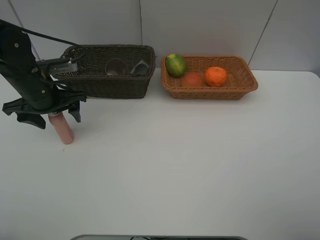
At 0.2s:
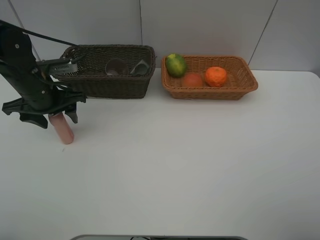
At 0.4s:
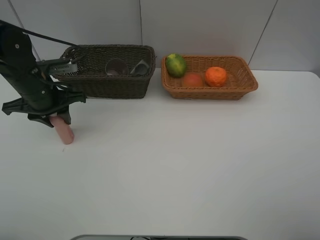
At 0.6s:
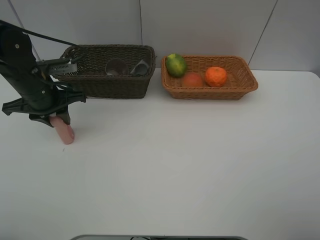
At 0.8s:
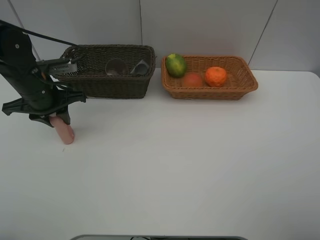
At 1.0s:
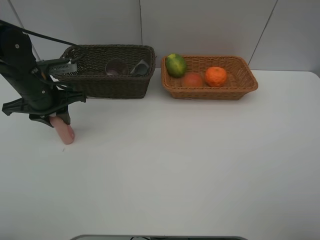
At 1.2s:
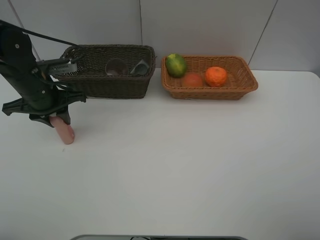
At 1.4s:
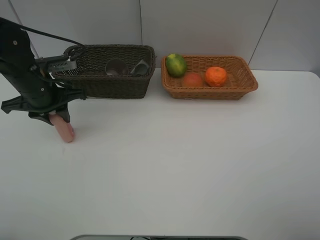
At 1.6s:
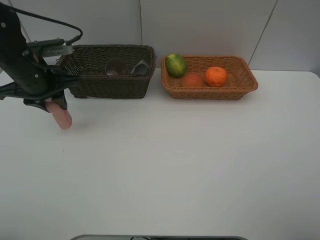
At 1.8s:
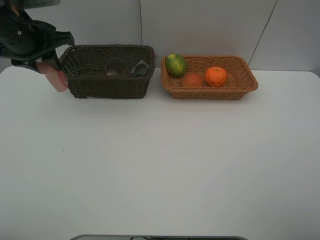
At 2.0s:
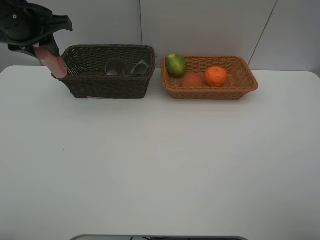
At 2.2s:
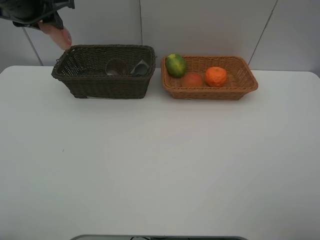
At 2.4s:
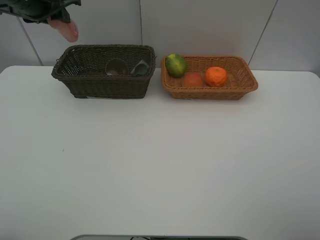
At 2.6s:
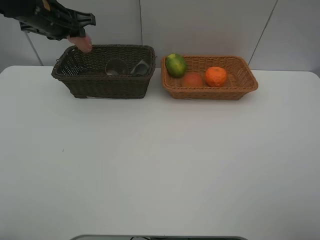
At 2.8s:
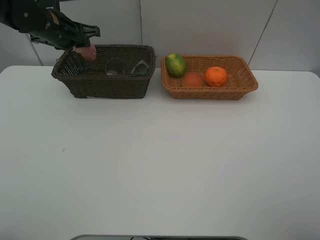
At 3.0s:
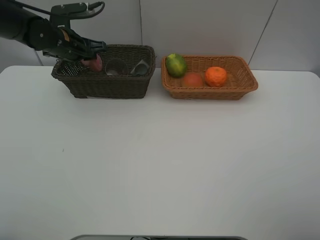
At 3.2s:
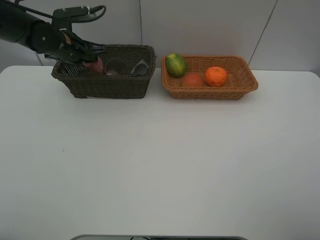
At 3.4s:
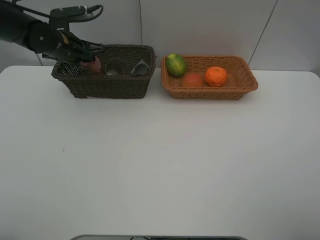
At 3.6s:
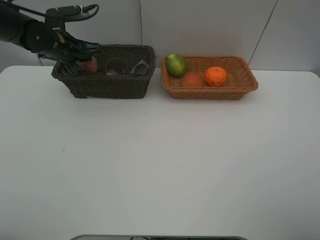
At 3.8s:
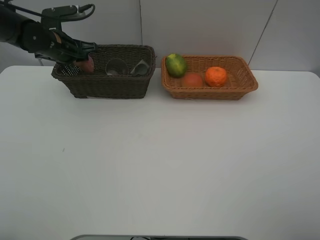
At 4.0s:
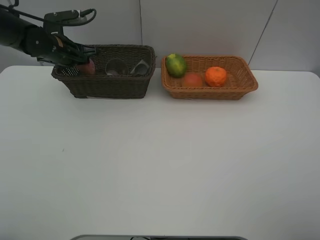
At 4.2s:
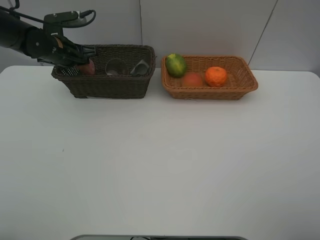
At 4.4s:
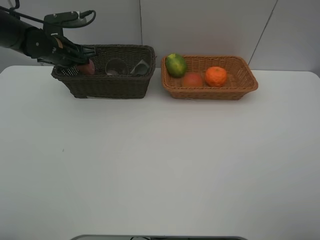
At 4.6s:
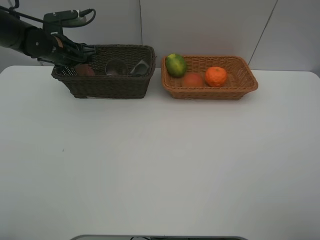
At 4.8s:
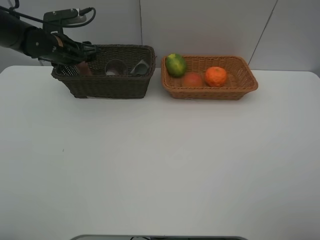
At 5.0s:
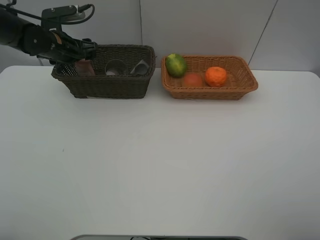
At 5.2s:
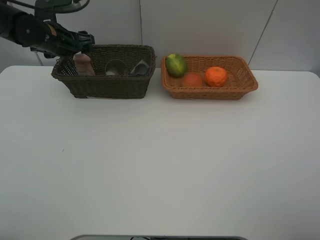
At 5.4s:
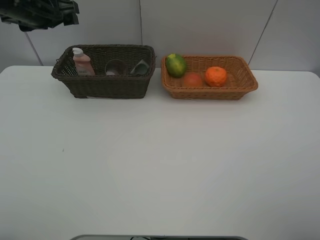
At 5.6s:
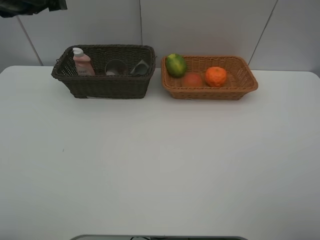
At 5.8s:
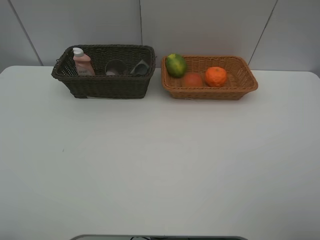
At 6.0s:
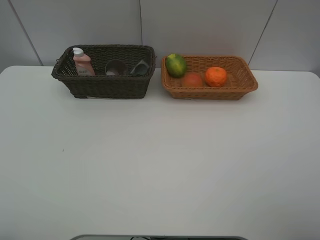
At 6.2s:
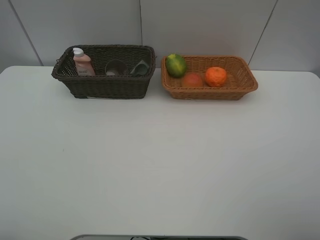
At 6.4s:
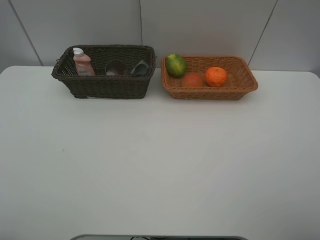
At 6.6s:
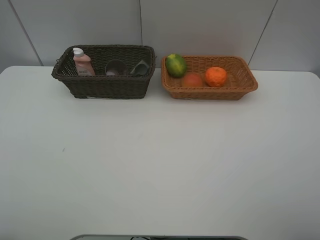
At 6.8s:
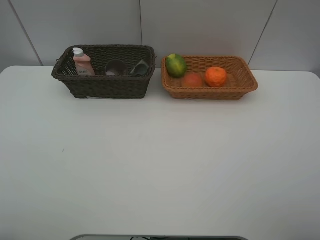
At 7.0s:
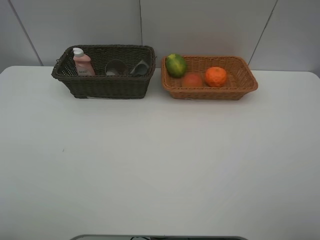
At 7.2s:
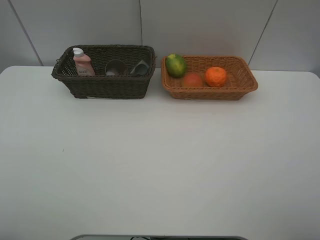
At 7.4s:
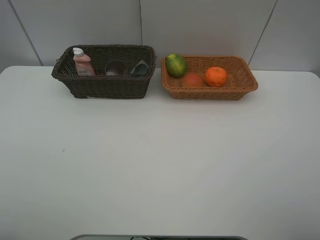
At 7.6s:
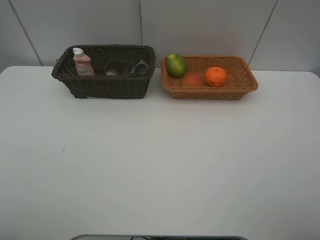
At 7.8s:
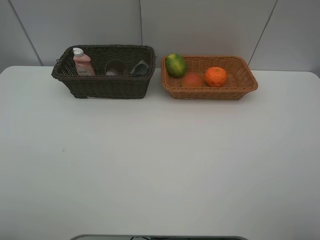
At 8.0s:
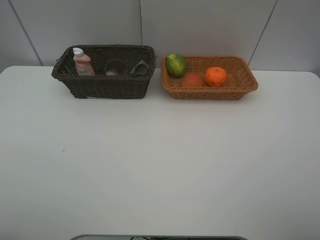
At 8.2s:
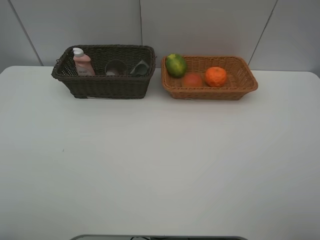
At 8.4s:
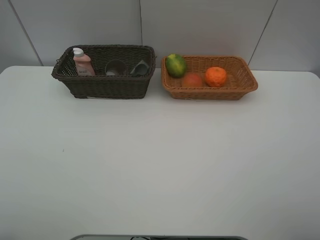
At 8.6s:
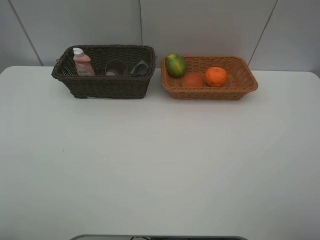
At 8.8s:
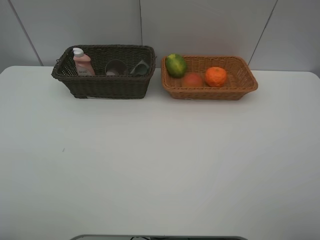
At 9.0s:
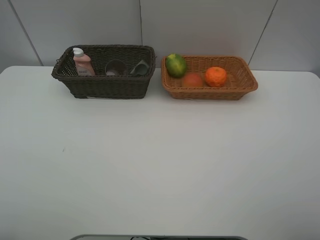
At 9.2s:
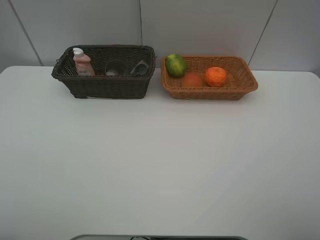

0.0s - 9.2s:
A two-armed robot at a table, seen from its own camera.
Task of the whole recording: place multiple objects separately in different baskets.
0.0s - 1.6s: The left gripper ends up roughly 5 cm from where it was, and closes up.
1.6s - 3.0s: The left gripper moves forward, some 10 cm, and goes upward and returns, some 10 cm each way.
3.0s - 4.6s: The left gripper opens.
4.6s - 6.2s: The left gripper goes some 40 cm backward and upward, and opens up.

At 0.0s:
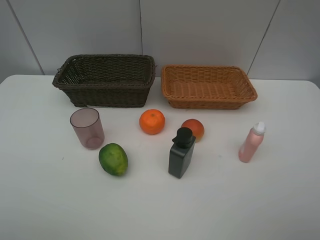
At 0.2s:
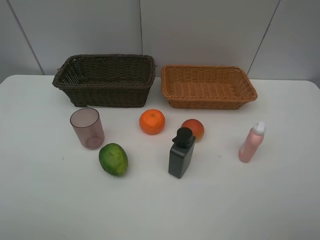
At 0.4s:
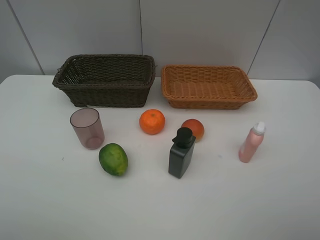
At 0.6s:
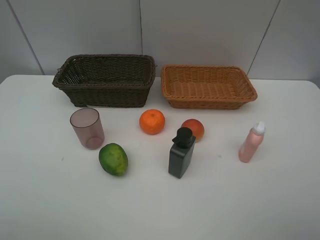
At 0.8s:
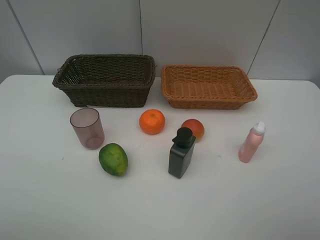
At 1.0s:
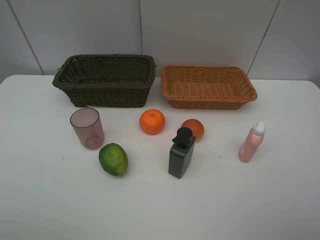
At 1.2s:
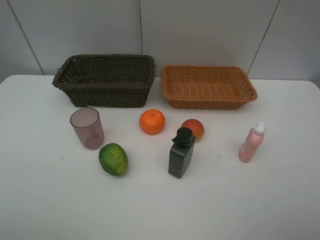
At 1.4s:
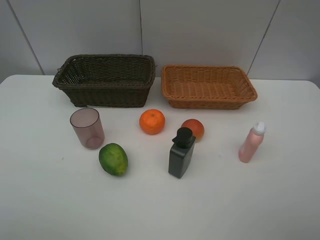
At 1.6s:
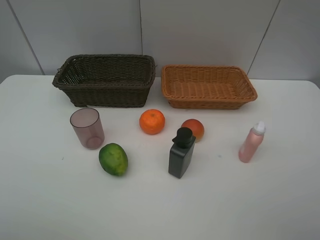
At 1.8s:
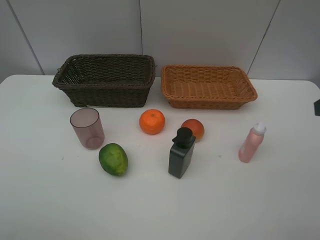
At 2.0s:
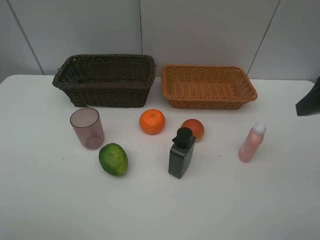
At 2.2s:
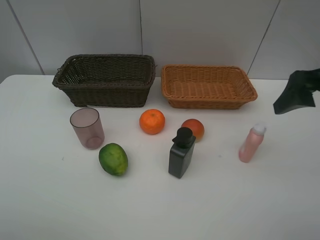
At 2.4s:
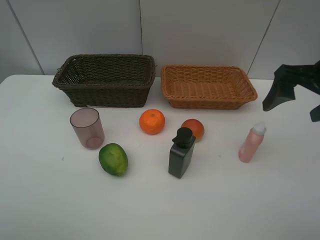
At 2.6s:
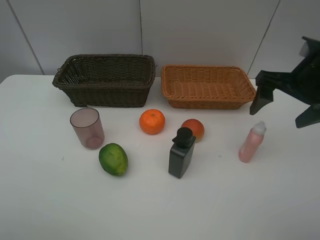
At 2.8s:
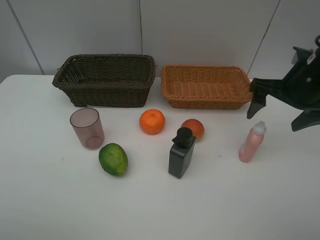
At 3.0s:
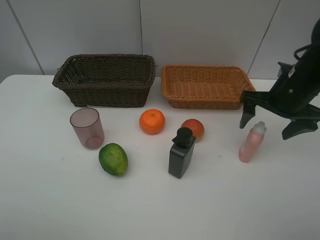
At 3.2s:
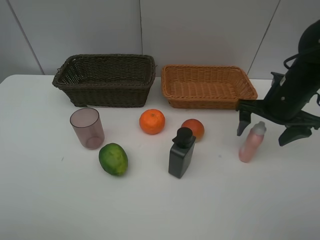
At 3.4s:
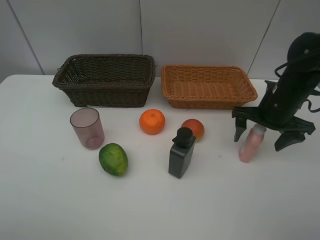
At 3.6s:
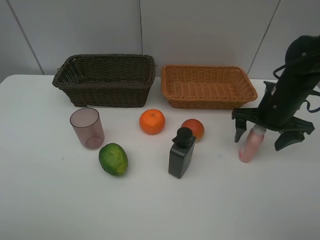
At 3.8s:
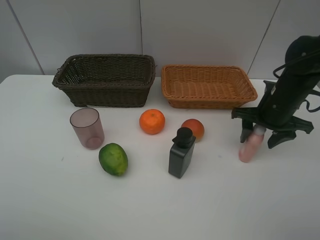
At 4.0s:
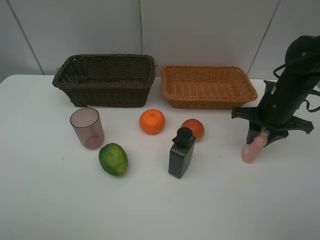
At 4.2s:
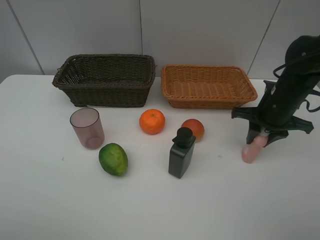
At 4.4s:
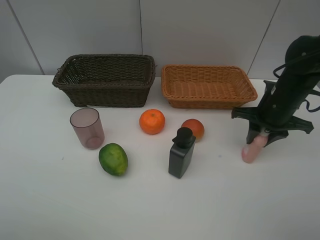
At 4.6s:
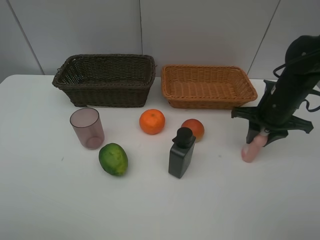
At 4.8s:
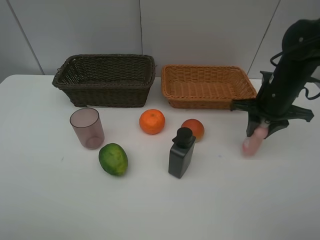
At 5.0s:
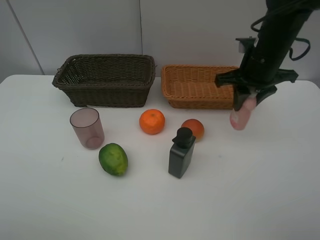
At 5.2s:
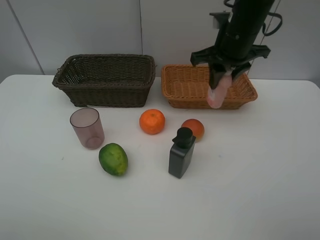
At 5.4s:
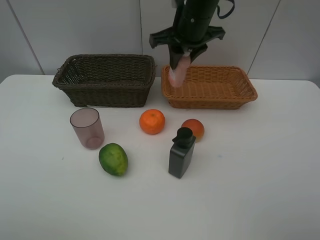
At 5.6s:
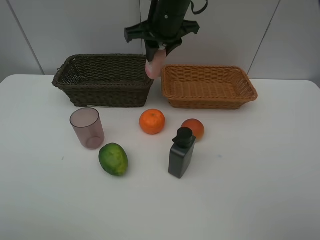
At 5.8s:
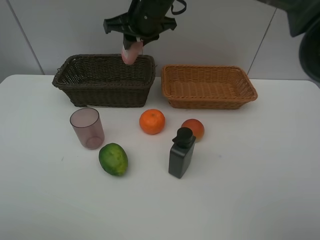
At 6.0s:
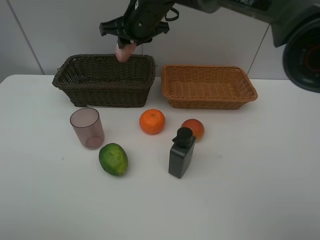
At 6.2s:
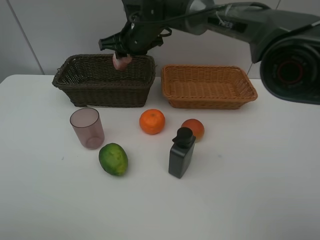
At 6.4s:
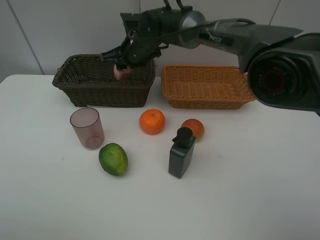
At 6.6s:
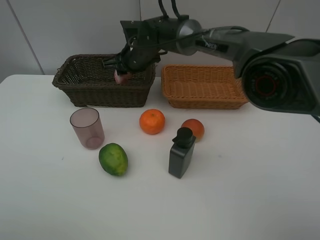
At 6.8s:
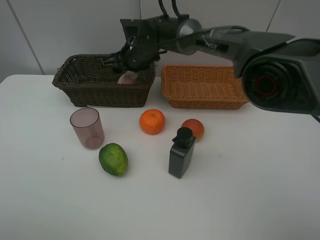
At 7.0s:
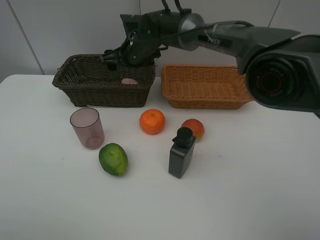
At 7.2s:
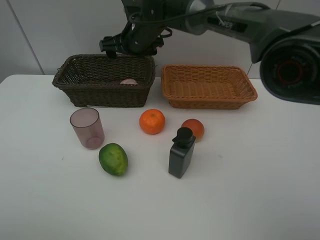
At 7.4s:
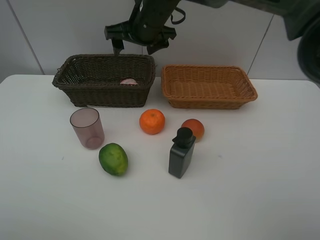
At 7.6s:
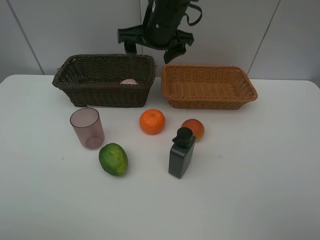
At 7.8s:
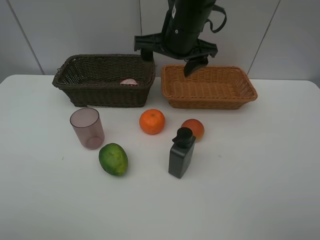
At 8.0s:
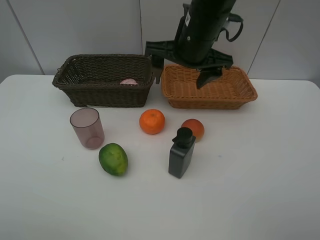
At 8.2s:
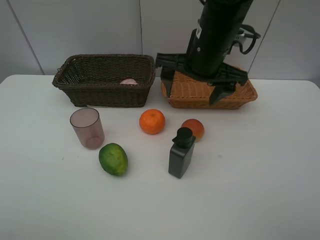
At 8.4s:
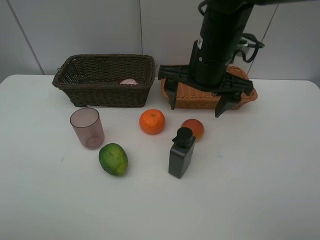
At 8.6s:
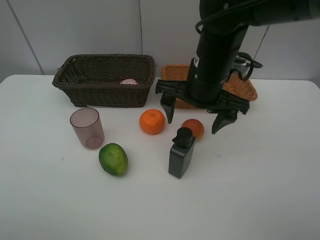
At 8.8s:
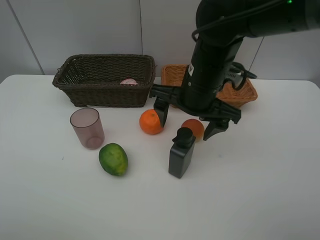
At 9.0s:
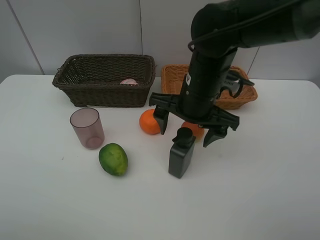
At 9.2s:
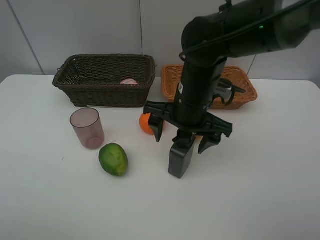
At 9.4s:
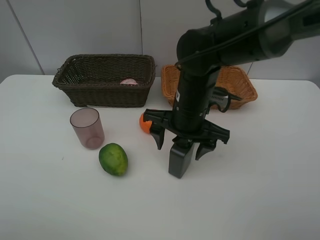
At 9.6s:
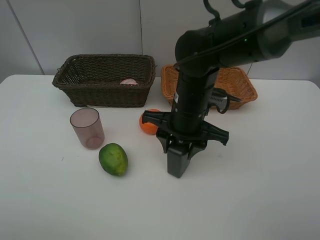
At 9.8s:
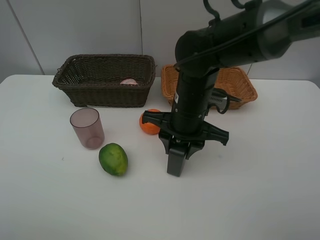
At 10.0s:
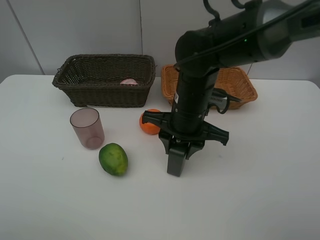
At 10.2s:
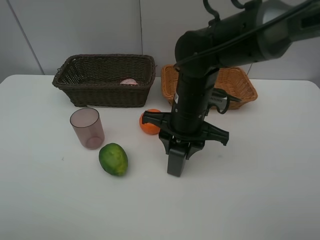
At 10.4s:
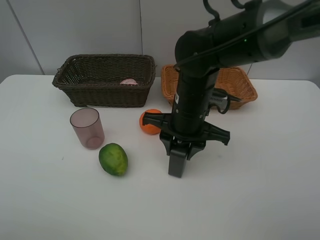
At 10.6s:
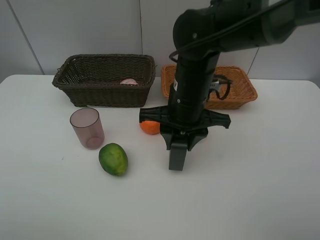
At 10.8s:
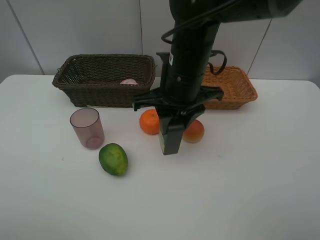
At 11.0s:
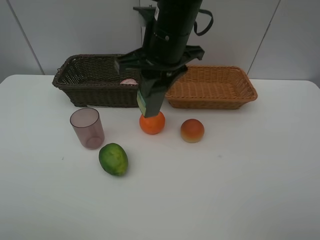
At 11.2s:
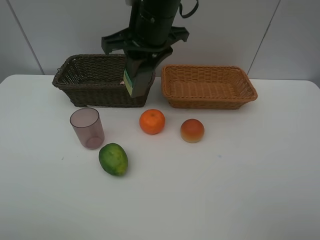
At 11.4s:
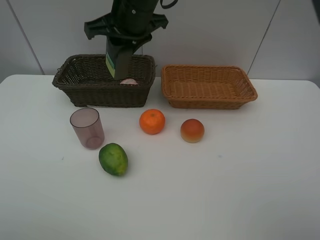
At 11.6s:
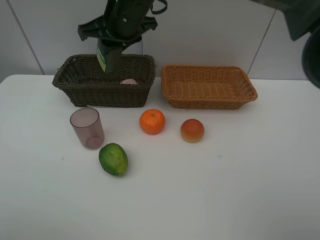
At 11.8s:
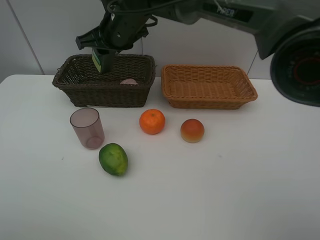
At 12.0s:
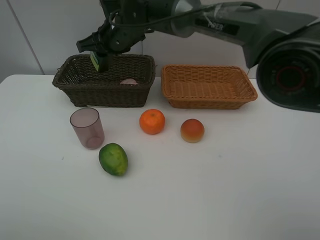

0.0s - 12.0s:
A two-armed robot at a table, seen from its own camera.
Task of the whole recording: place multiple objects separately in different baskets.
1.6s - 3.0s: The right gripper travels forward and downward by some 25 cm.
3.0s - 4.4s: The right gripper closes up.
4.4s - 6.0s: The right gripper shifts approximately 30 cm to the left and forward.
6.0s - 7.6s: The right gripper travels downward and back again, approximately 10 cm each way, and opens its fingers.
7.6s - 9.0s: The right gripper shifts approximately 15 cm backward and downward.
9.0s - 10.4s: The right gripper closes.
10.4s - 12.0s: The right gripper heads forward and to the left, covering approximately 20 cm.

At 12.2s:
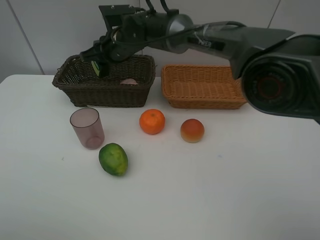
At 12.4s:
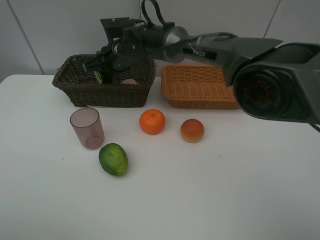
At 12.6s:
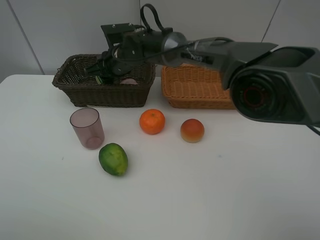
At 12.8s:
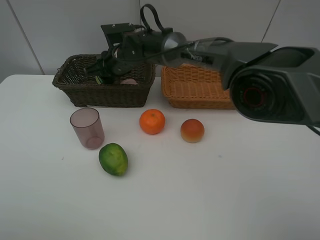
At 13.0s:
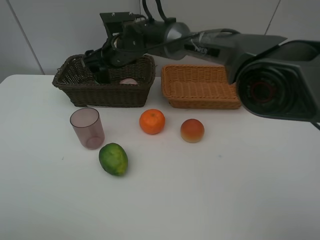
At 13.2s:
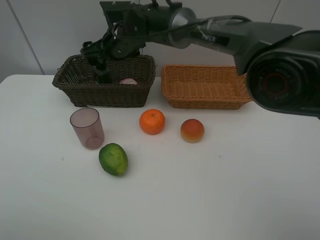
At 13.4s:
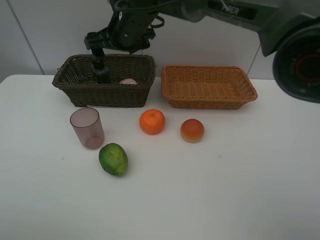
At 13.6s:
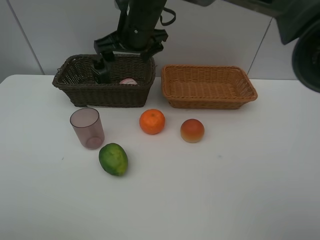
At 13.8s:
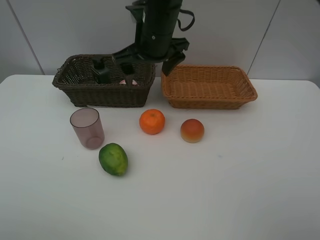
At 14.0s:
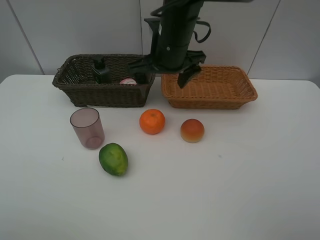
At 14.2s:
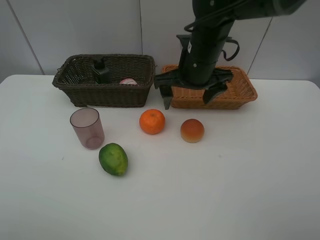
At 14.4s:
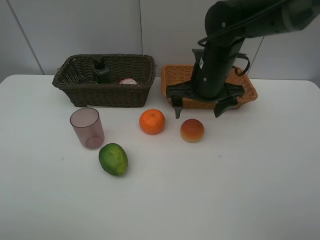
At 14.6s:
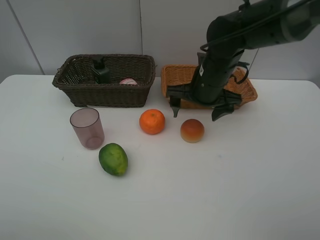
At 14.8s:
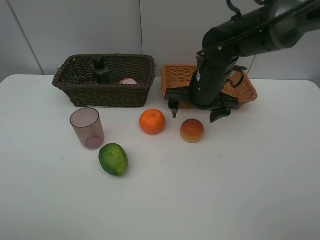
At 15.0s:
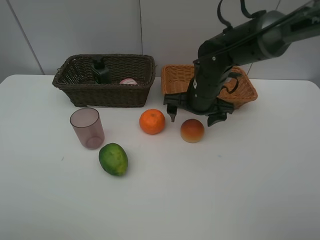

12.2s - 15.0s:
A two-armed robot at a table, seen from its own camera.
Task of the whole recording: place multiple objects separately in different baskets.
12.2s - 13.6s: The right gripper is displaced upward by some 5 cm, and opens.
13.6s - 15.0s: The right gripper heads to the right and downward, covering about 20 cm.
